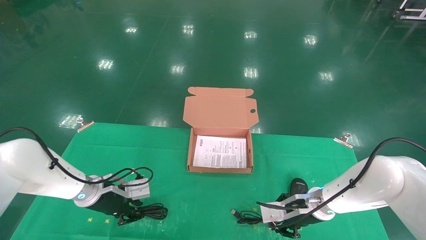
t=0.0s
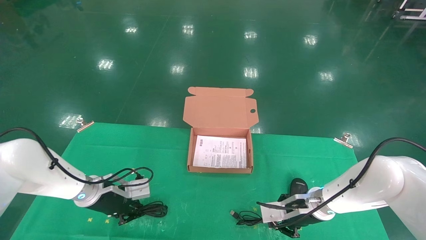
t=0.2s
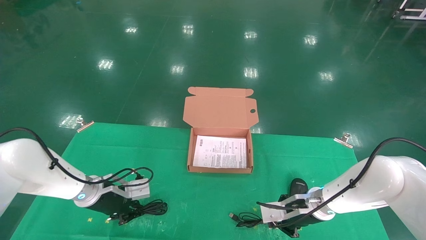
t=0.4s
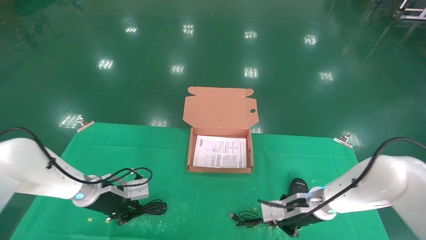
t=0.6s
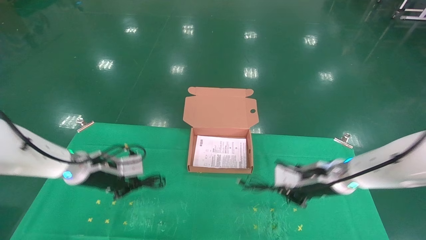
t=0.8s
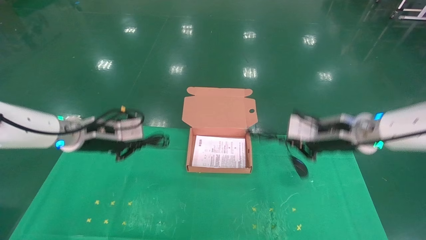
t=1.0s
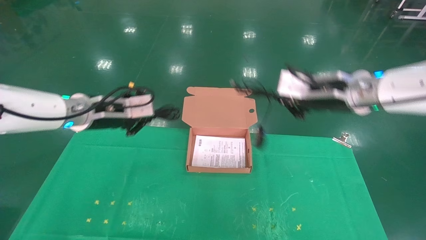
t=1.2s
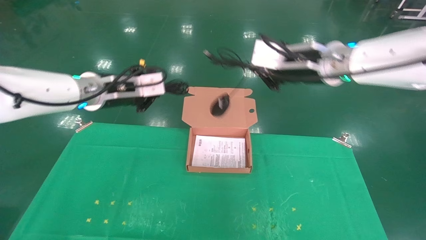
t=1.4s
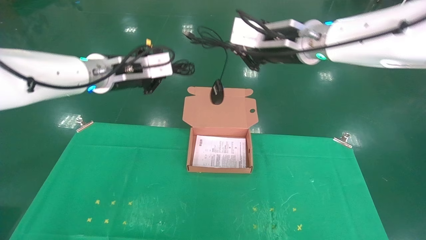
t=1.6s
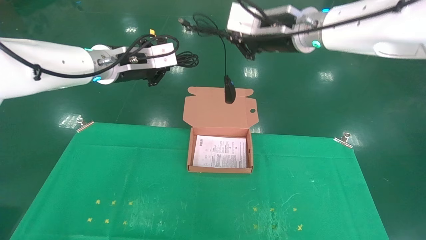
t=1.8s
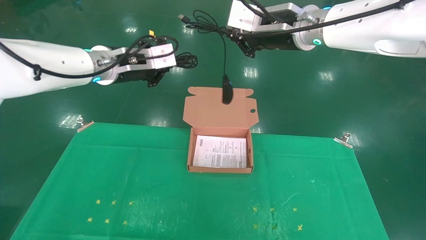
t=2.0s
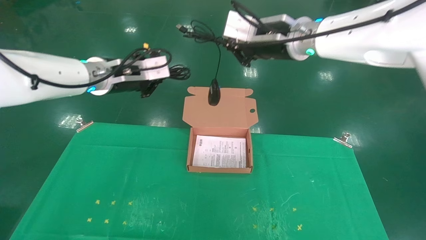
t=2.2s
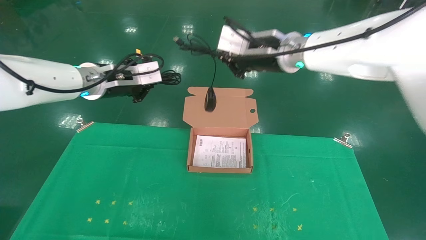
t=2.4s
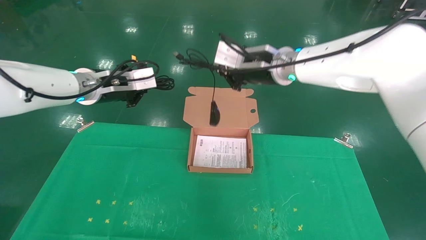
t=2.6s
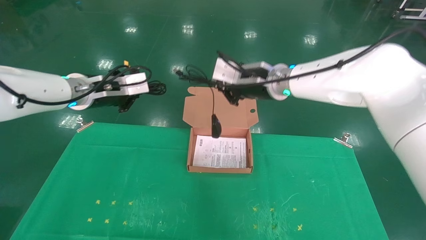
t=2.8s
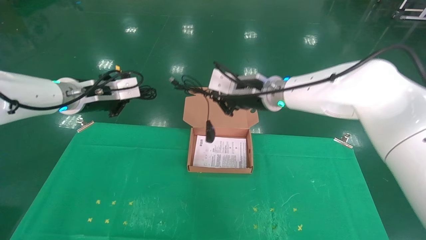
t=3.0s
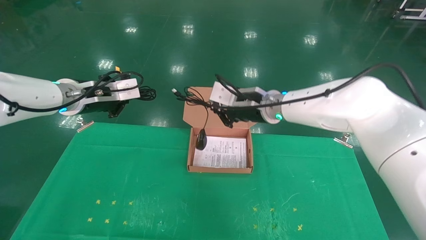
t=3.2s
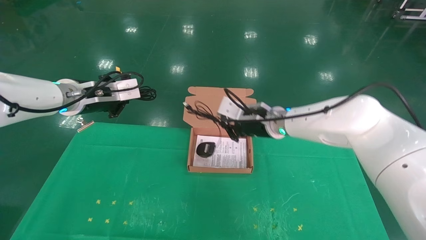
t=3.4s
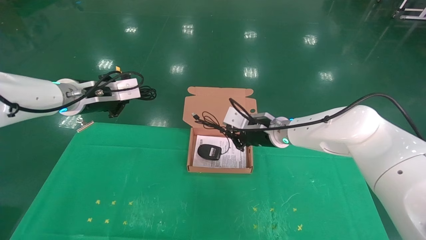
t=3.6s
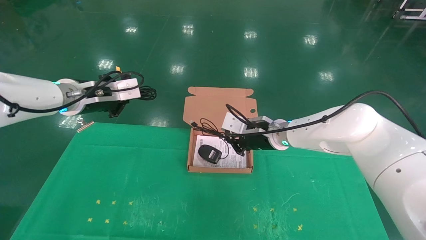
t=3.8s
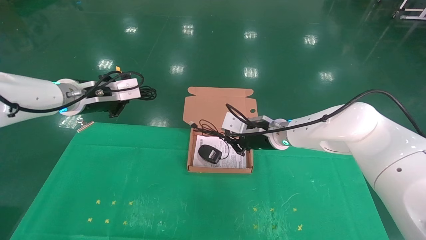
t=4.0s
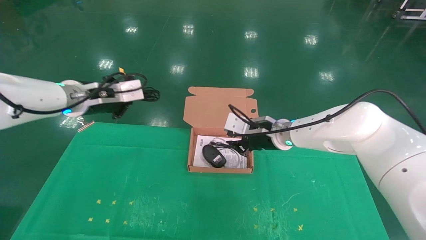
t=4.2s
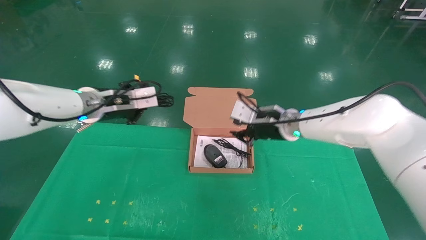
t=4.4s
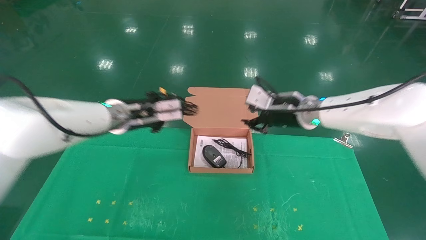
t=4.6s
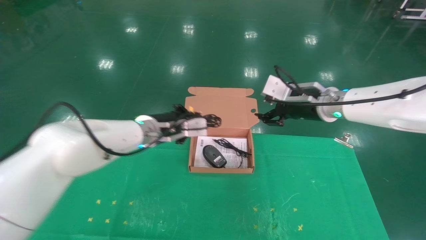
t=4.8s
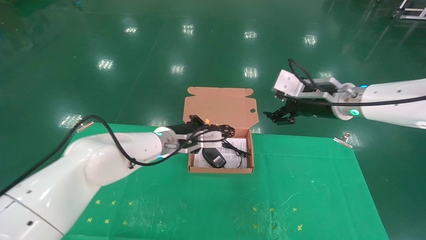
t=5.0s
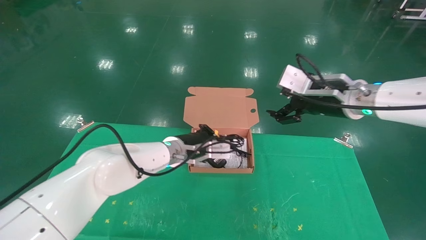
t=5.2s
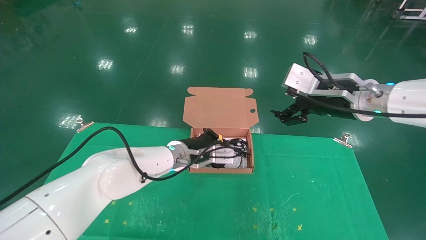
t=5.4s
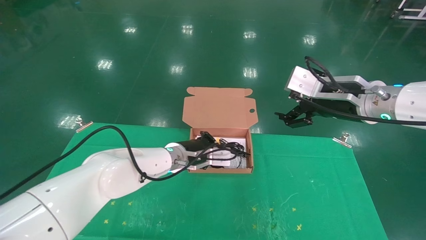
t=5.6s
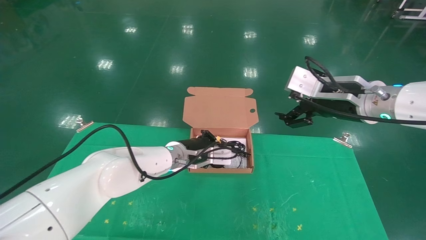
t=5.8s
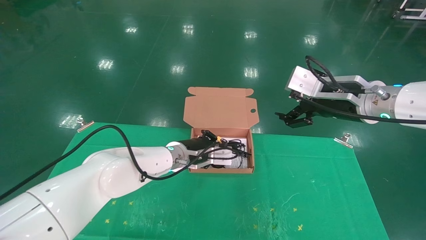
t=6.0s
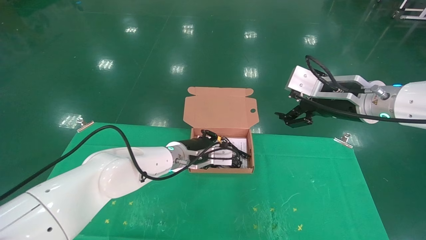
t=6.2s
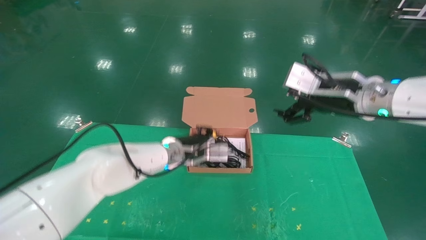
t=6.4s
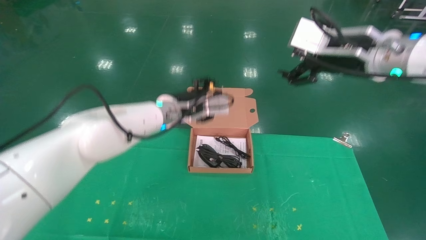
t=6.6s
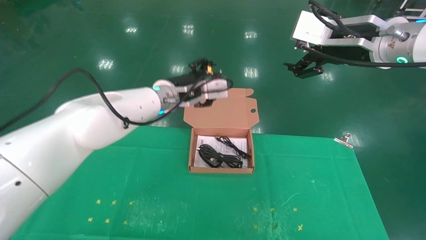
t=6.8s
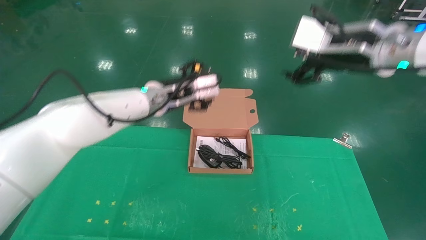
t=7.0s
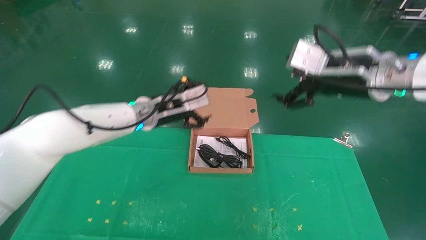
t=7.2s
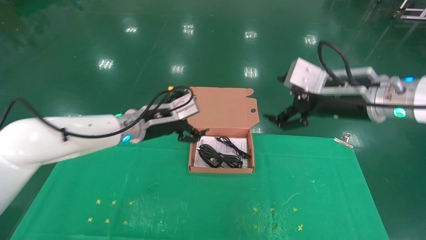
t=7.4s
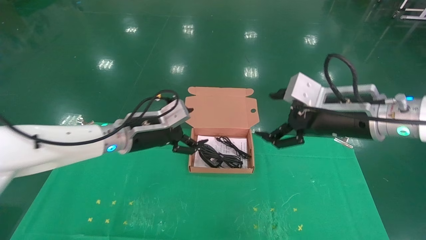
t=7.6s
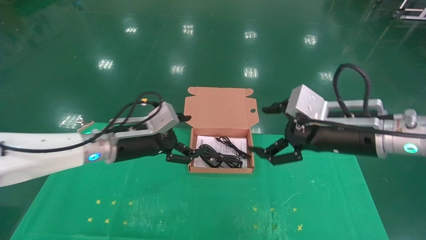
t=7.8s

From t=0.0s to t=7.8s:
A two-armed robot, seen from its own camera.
Task of the whole recording: grasp data cable left put into box grasp mouse right put into box.
Step, from t=1.8s to t=6.6s: Place the mouse and power cord into the box.
From t=0.0s to t=1.6s: Both grippers travel together upward, roughly 30 cm. The right gripper closes its fingers. Meanwhile the left gripper closes up.
From t=1.6s to t=3.2s: The right gripper travels downward and forward by some 15 cm. Meanwhile the left gripper moves to the left, approximately 5 cm.
From t=3.2s to t=4.6s: The right gripper travels to the right by approximately 10 cm, while the left gripper shifts approximately 10 cm to the right and downward.
From t=4.6s to t=6.2s: The right gripper travels backward, to the right and upward by approximately 10 cm, and opens; the left gripper shifts roughly 15 cm to the right and downward.
From t=6.2s to t=7.8s: The left gripper moves to the left, backward and upward, about 15 cm, and opens up; the right gripper changes place by approximately 5 cm.
